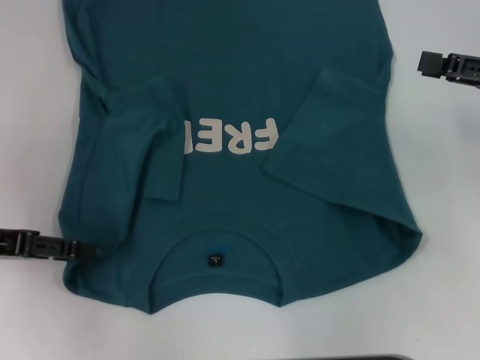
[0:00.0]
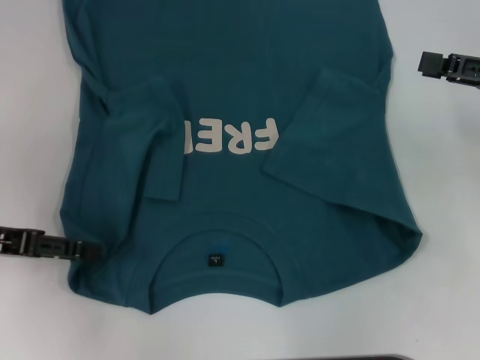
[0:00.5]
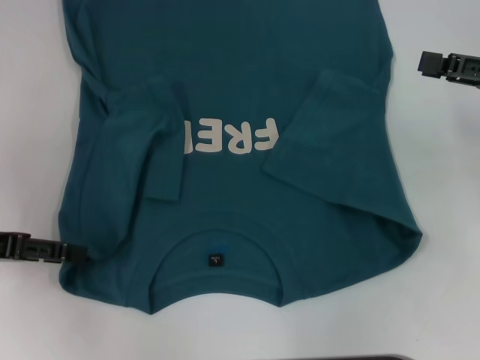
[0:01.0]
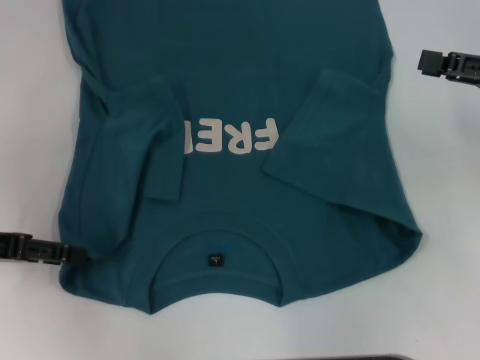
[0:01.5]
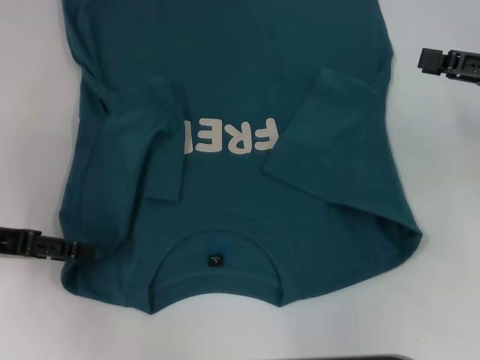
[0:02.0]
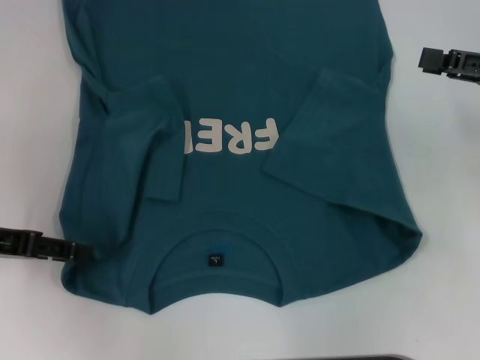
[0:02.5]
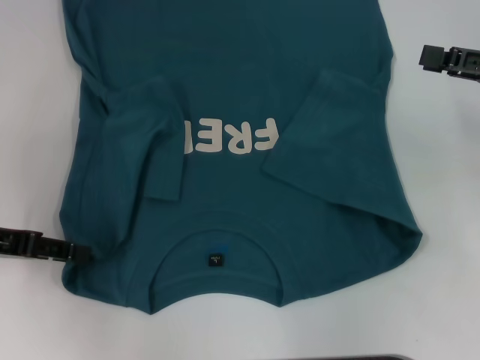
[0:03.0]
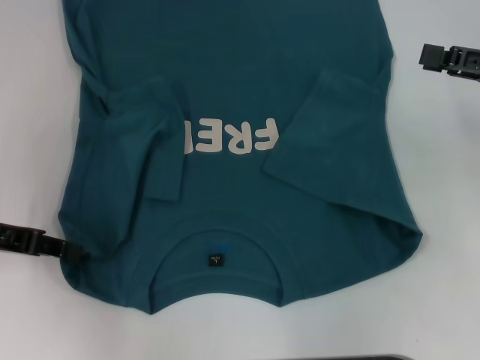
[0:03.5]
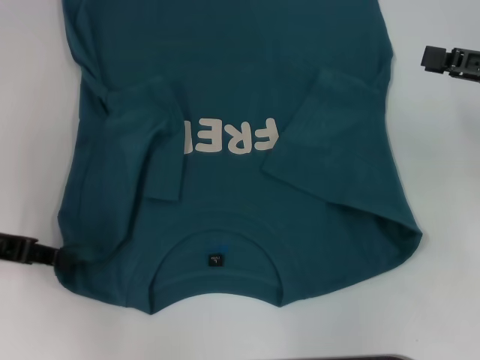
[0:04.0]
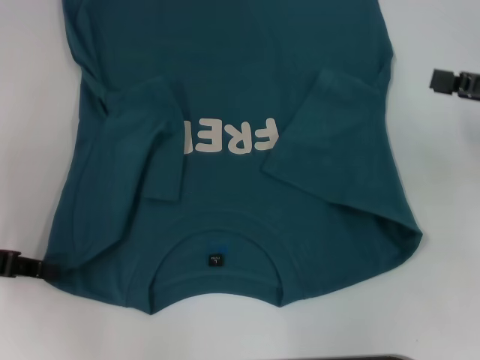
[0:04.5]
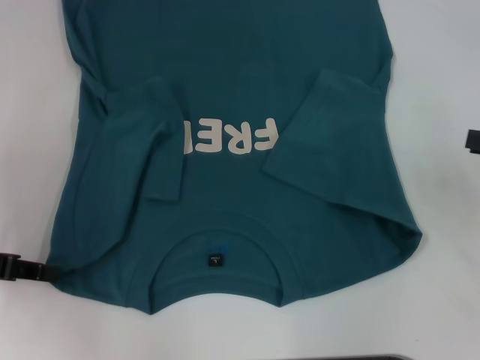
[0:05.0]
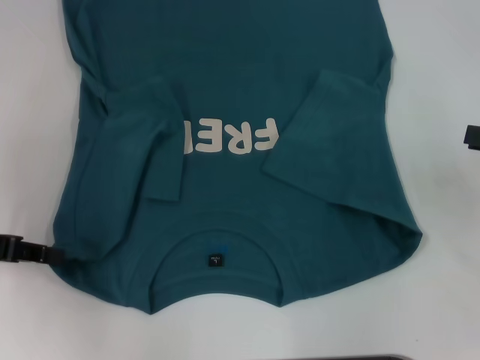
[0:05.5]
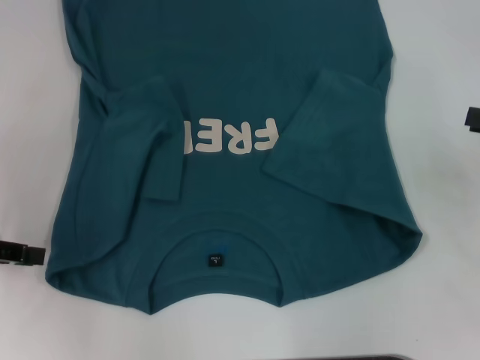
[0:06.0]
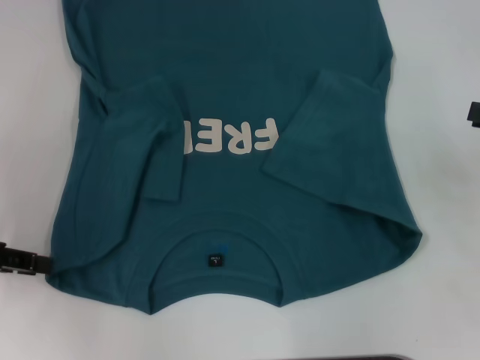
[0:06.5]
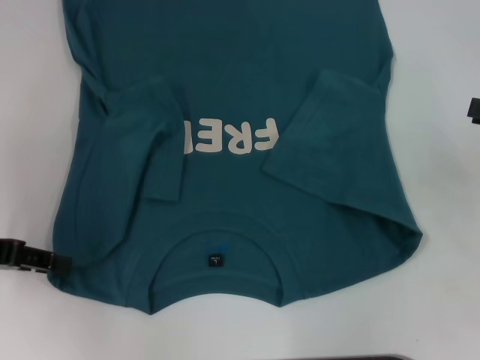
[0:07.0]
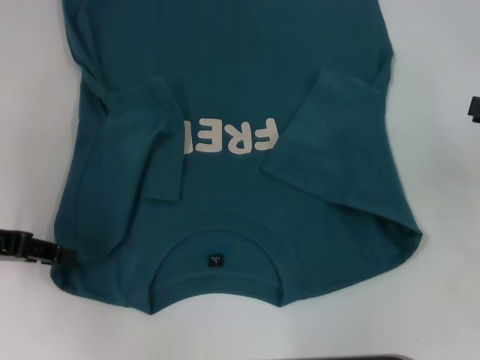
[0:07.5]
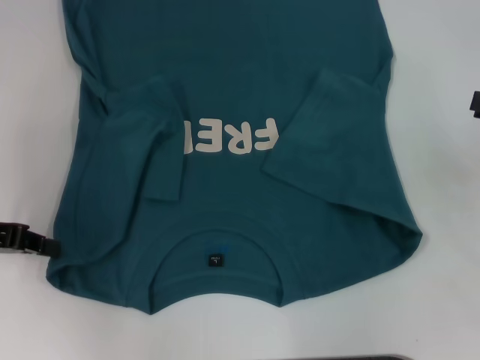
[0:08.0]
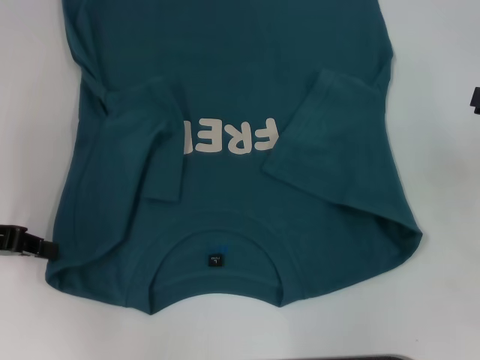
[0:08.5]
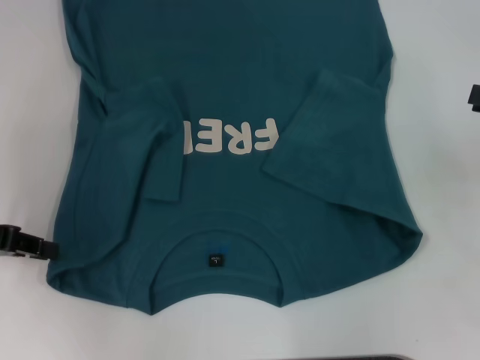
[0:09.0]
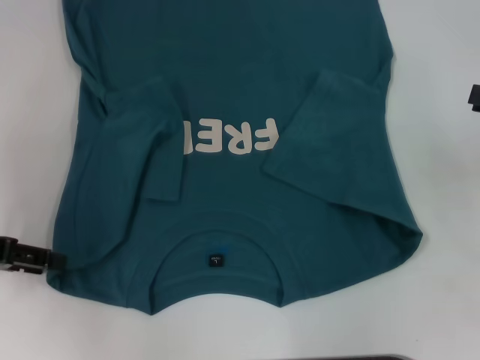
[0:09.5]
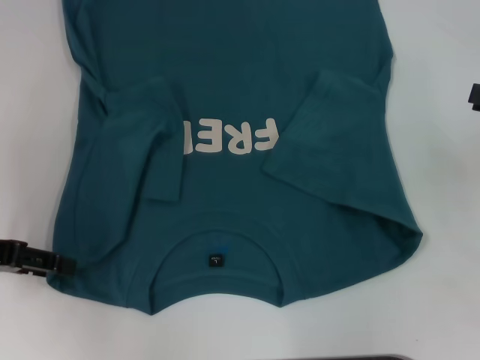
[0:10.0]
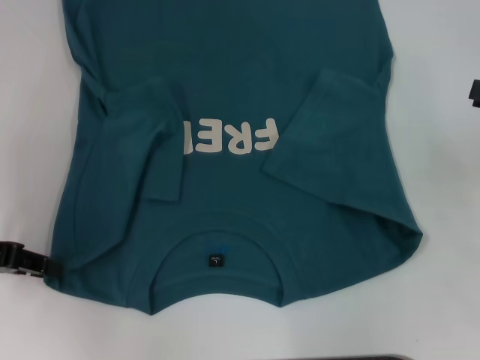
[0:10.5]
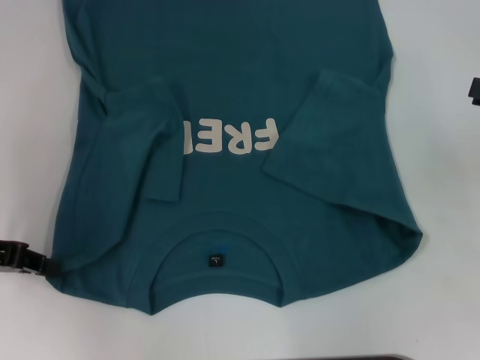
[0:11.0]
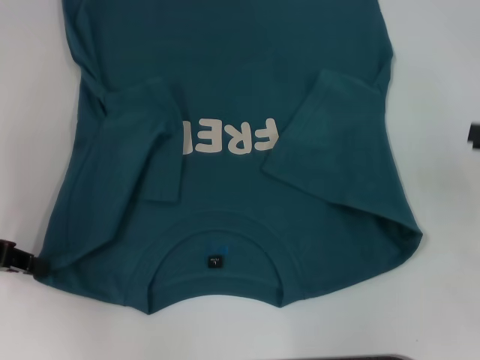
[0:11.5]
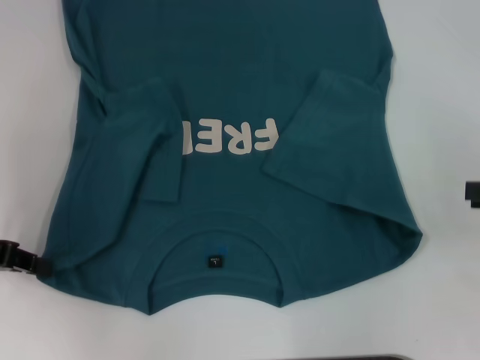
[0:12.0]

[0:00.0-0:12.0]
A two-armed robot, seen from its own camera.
Step, 0.0 to 11.0 s: Grab the bottom left corner with your left hand.
0.0 to 2.0 s: Neither gripper changes place.
2.0 to 4.0 s: The left gripper closes.
4.0 to 6.0 s: The right gripper changes place by some 5 cm.
6.0 to 8.0 s: The grippers stay close to where they were, moving slightly.
8.0 to 10.0 s: The left gripper opens up.
10.0 to 12.0 s: The left gripper closes its fingers.

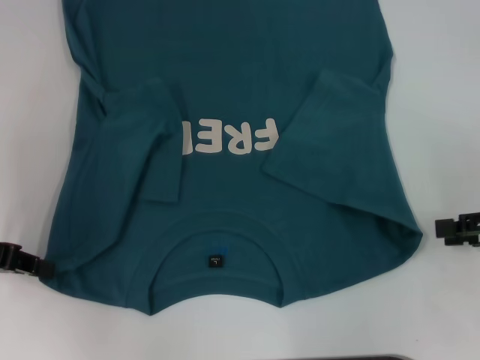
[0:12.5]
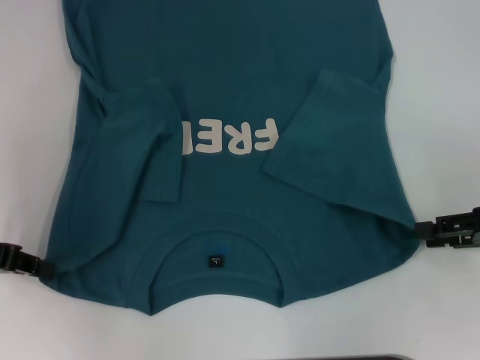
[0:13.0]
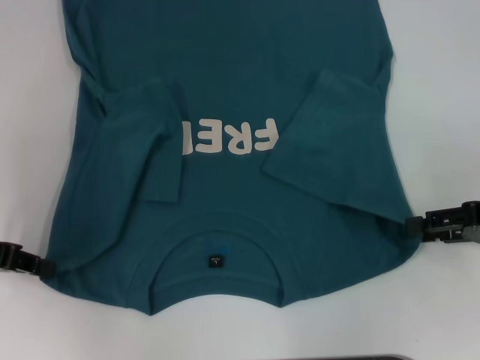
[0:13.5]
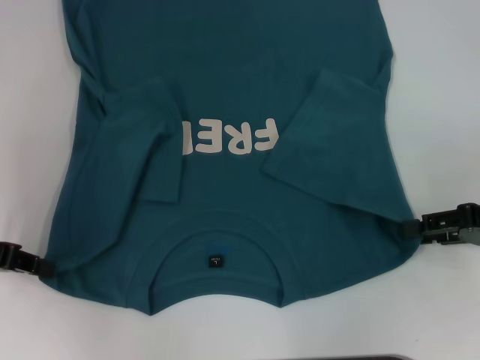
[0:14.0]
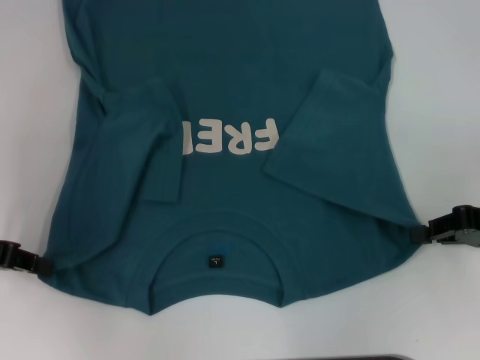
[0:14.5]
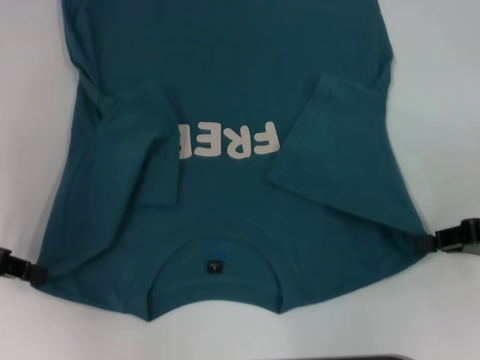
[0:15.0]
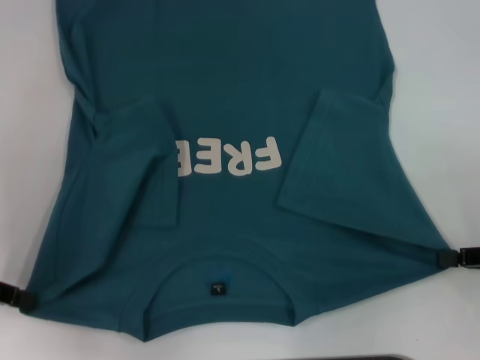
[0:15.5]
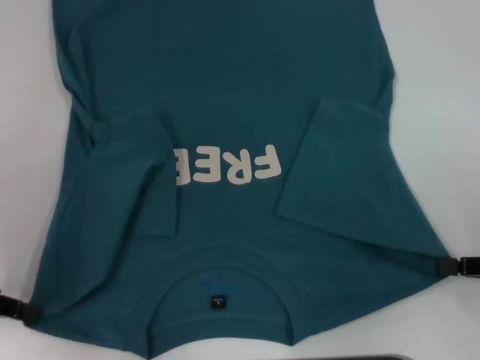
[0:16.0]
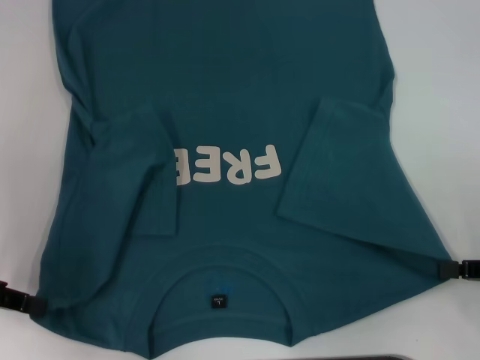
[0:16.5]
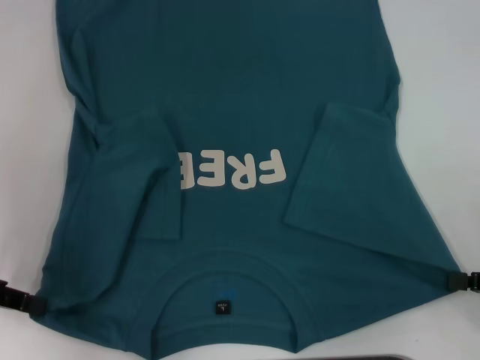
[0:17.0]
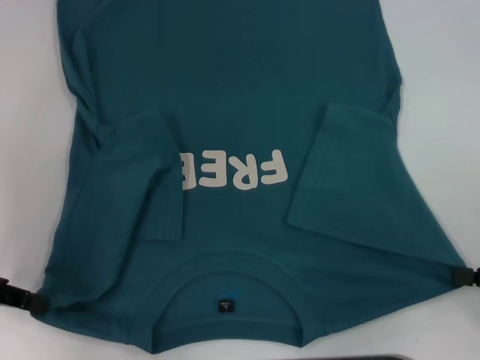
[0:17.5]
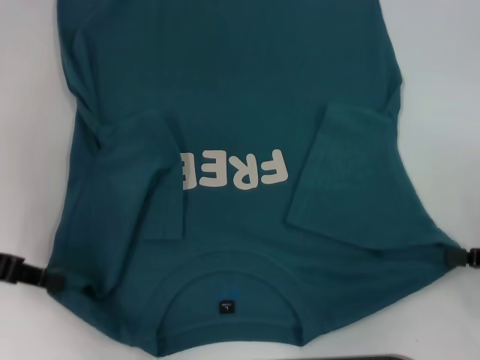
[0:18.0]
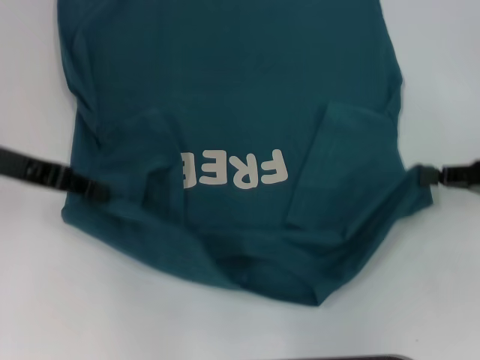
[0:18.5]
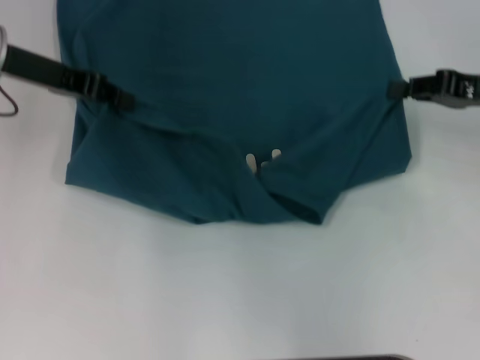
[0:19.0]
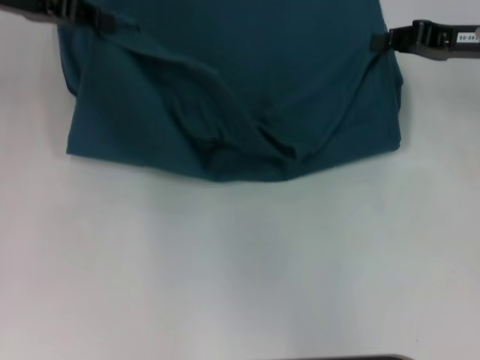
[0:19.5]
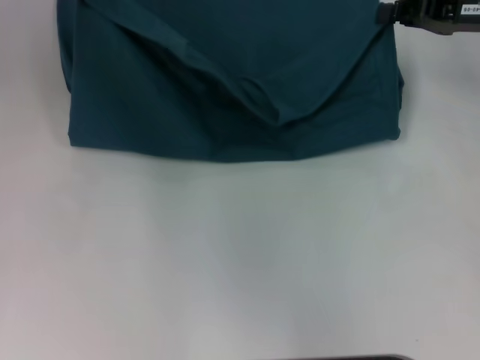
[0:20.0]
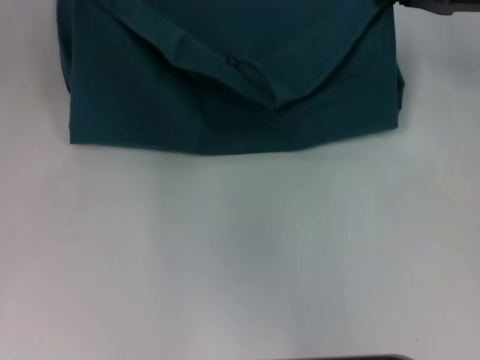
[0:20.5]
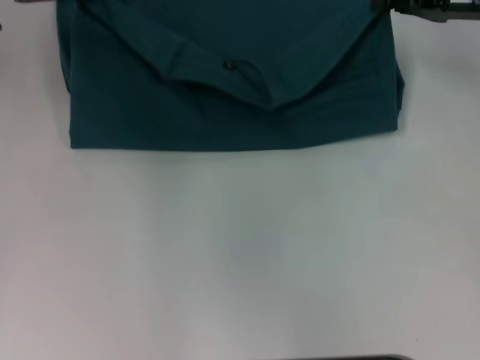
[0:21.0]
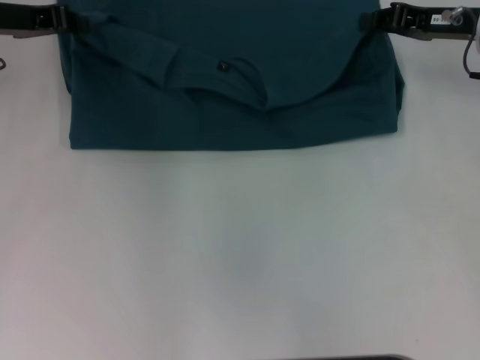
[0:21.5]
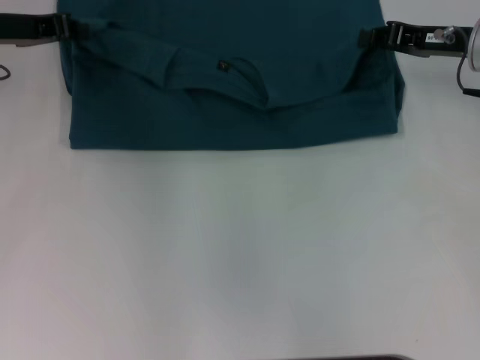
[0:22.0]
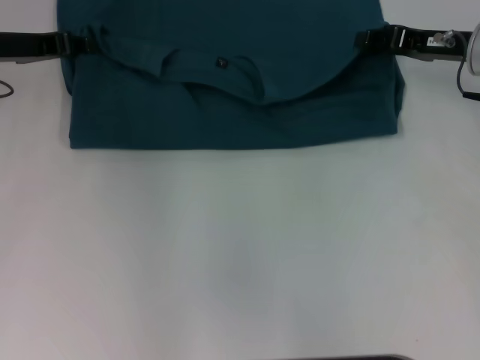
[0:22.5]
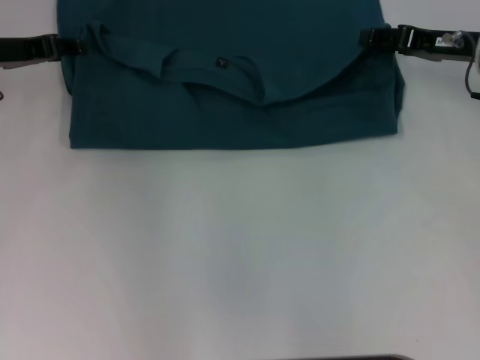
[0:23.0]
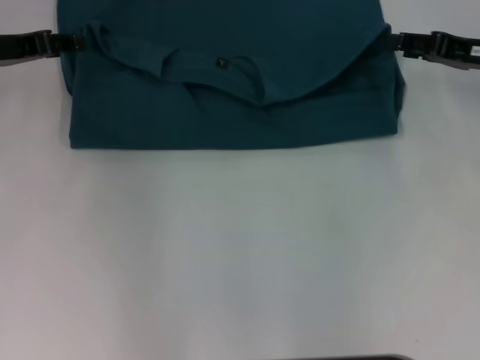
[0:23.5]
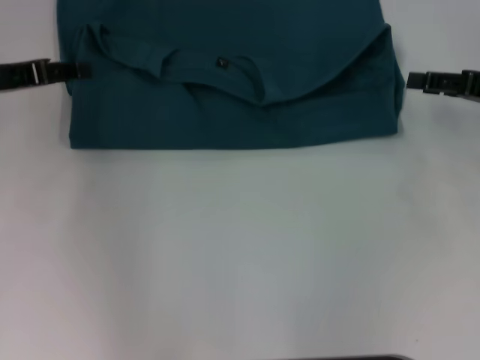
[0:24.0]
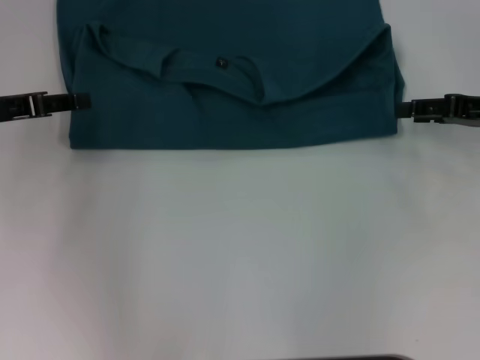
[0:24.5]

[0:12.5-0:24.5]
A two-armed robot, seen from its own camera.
Step, 12.5 to 14.5 s: Grab the bottom right corner with your right hand.
Step, 15.0 to 23.5 s: Fold the clothes to the left.
Step, 15.0 to 23.5 s: Fold the clothes to the right.
12.5 to 14.5 s: The right gripper closes its fingers.
14.5 to 16.5 s: The right gripper heads backward, covering roughly 5 cm.
16.5 to 18.5 s: The left gripper goes about 10 cm forward and to the right. Meanwhile the right gripper moves forward, roughly 10 cm.
18.5 to 20.5 s: The grippers both shift forward and upward by approximately 15 cm.
20.5 to 22.5 s: The left gripper heads downward, covering about 10 cm, while the right gripper moves downward, roughly 5 cm.
22.5 to 24.5 s: The right gripper travels backward and to the right by about 10 cm. Meanwhile the left gripper heads backward, covering some 10 cm, and opens up.

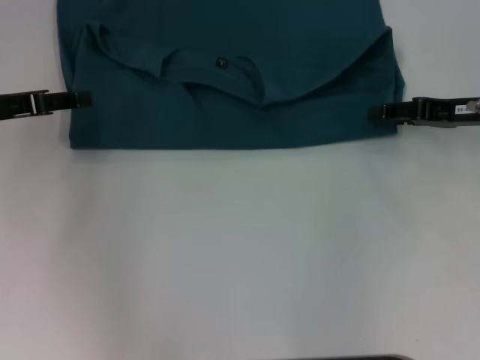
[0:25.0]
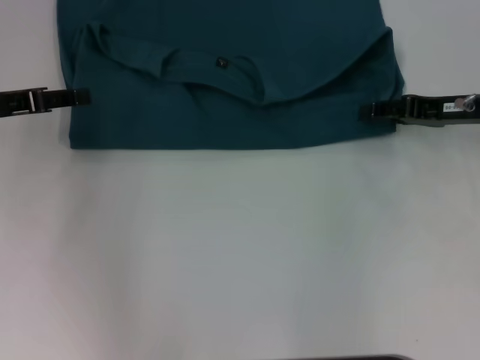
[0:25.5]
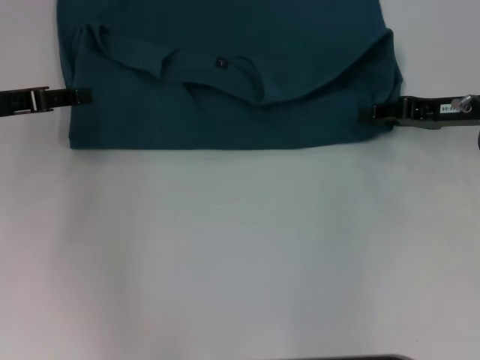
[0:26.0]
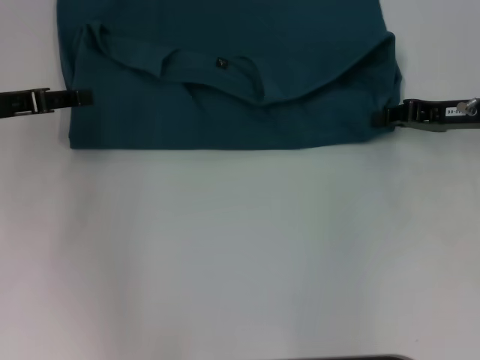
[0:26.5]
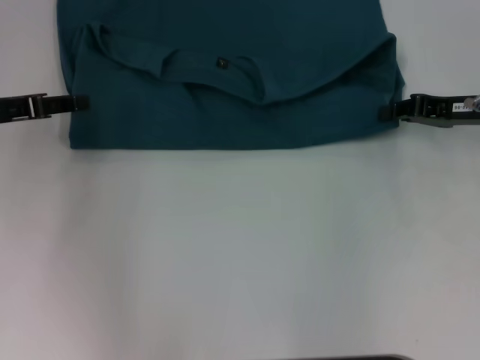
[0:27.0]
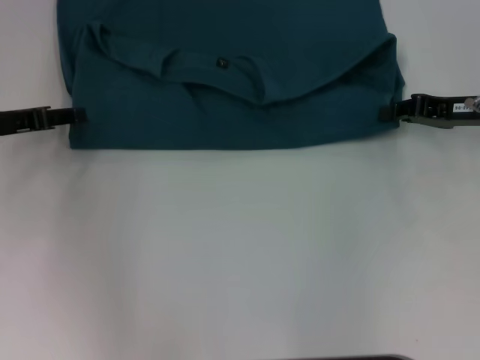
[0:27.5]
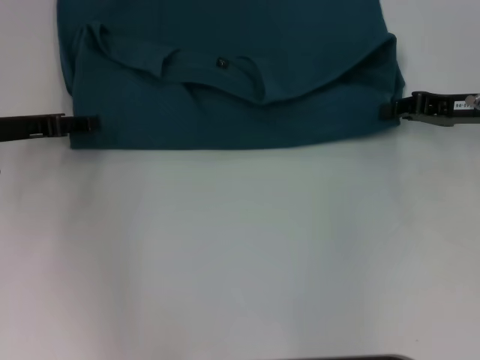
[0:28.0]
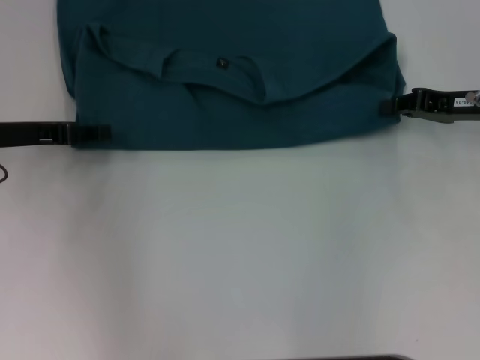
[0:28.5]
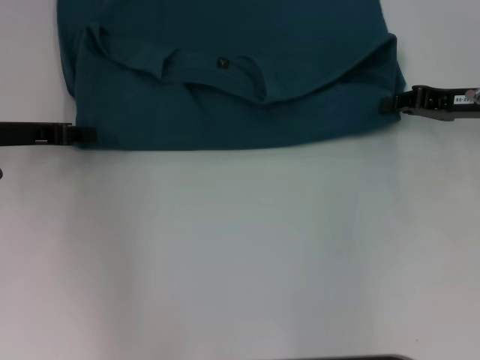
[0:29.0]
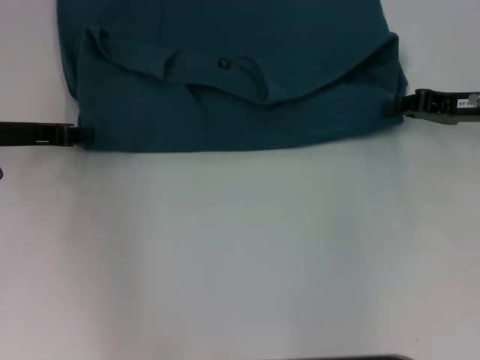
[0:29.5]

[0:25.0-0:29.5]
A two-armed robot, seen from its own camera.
27.0 to 29.5 s: The left gripper closes.
